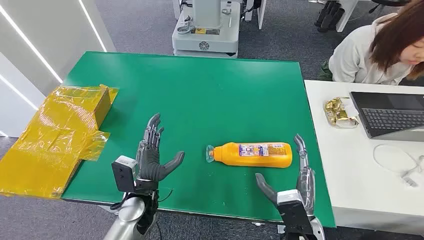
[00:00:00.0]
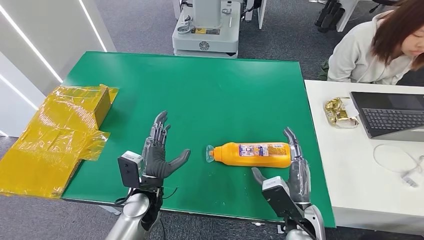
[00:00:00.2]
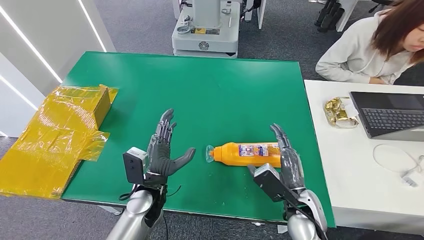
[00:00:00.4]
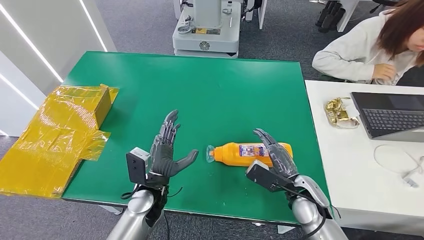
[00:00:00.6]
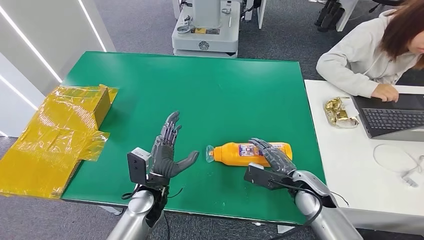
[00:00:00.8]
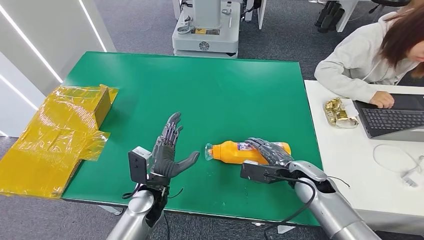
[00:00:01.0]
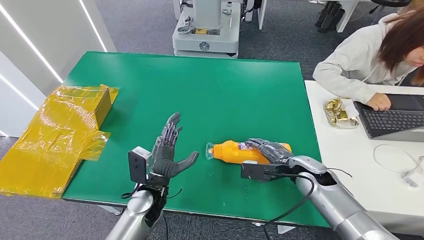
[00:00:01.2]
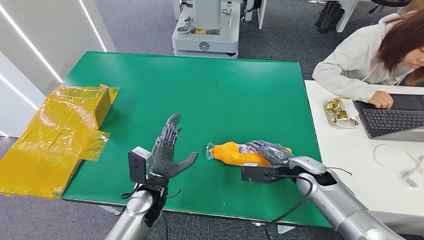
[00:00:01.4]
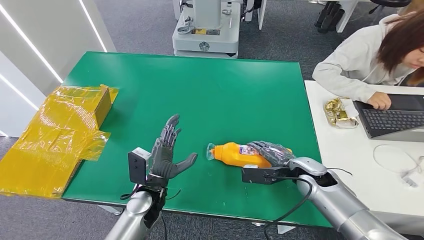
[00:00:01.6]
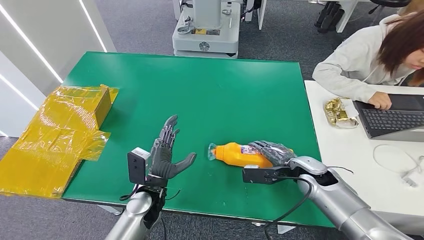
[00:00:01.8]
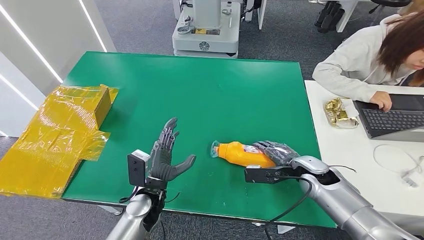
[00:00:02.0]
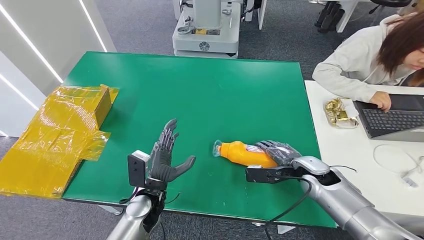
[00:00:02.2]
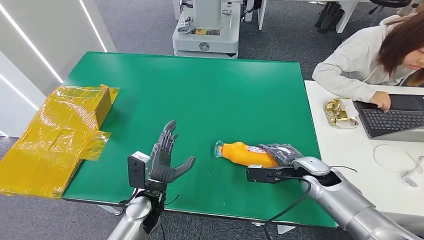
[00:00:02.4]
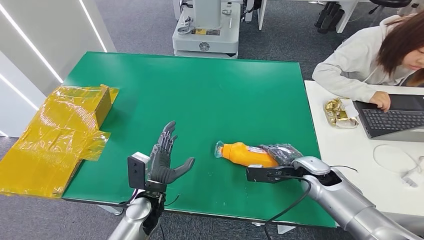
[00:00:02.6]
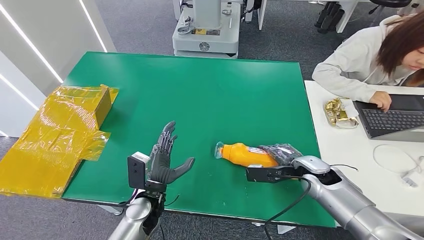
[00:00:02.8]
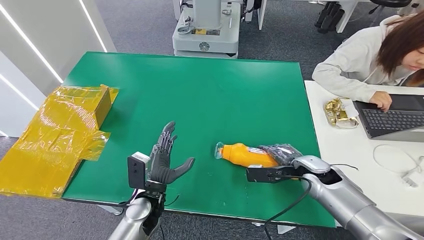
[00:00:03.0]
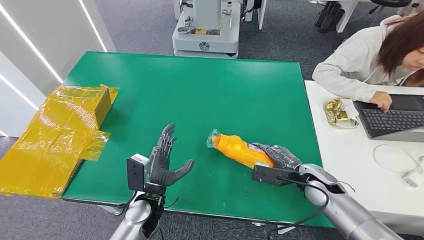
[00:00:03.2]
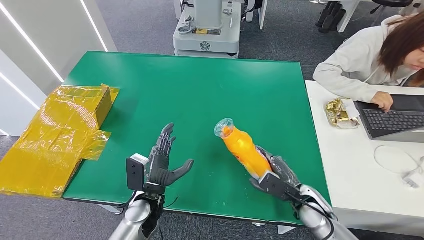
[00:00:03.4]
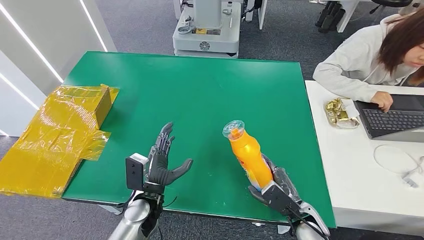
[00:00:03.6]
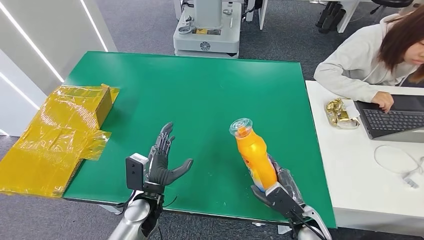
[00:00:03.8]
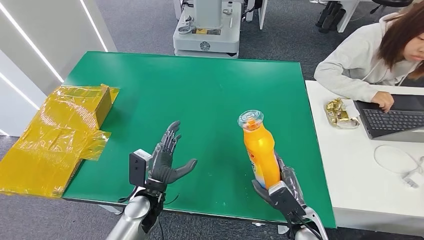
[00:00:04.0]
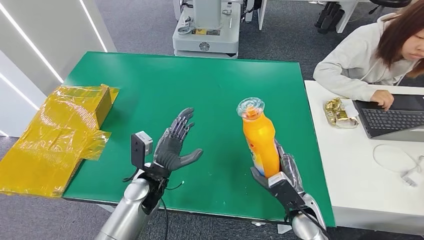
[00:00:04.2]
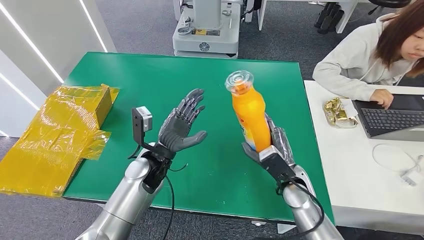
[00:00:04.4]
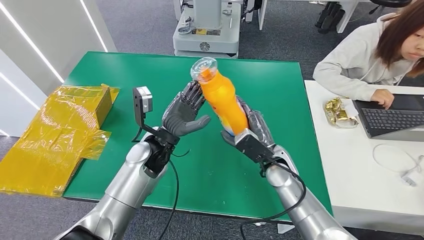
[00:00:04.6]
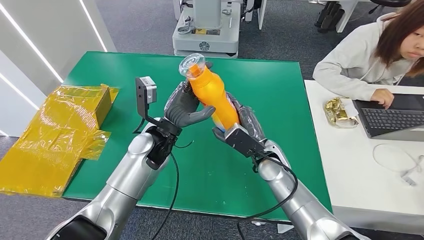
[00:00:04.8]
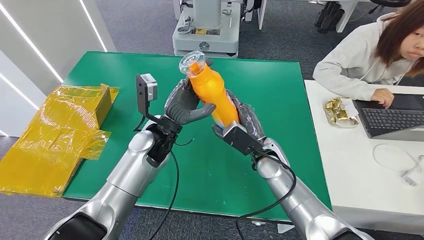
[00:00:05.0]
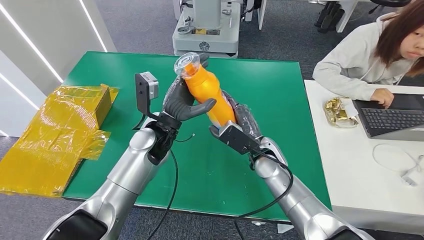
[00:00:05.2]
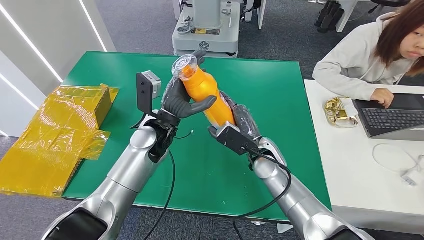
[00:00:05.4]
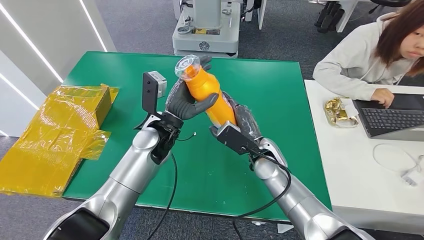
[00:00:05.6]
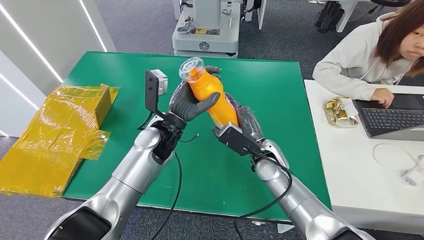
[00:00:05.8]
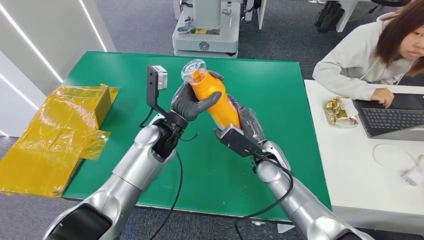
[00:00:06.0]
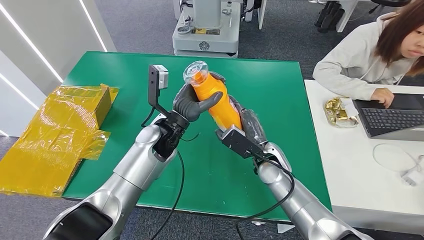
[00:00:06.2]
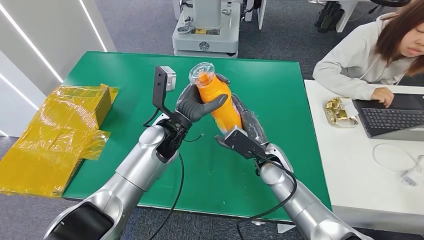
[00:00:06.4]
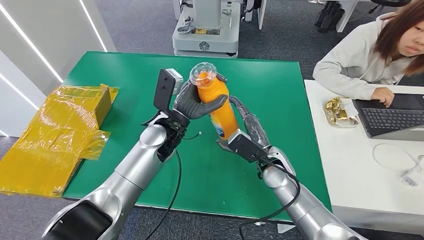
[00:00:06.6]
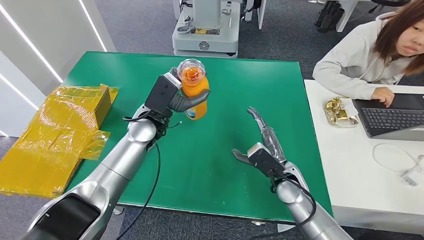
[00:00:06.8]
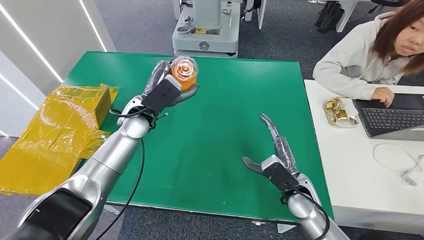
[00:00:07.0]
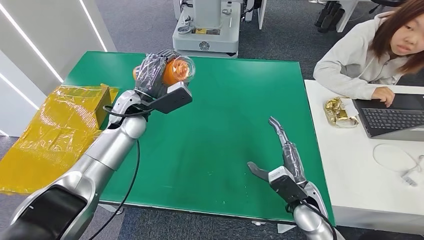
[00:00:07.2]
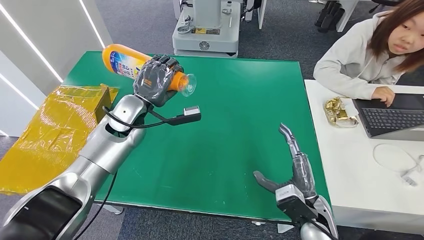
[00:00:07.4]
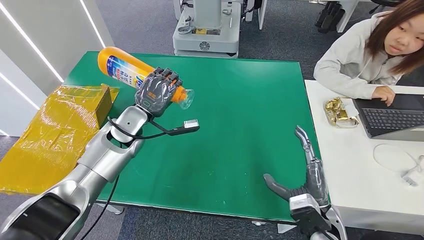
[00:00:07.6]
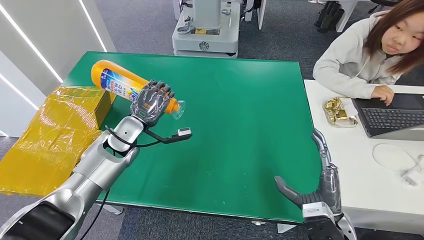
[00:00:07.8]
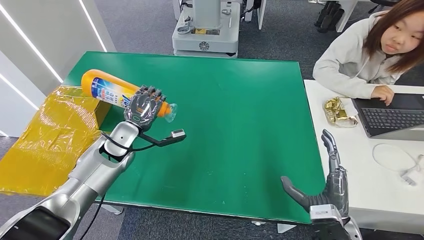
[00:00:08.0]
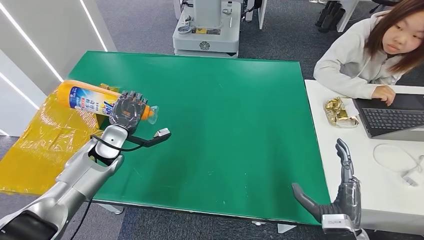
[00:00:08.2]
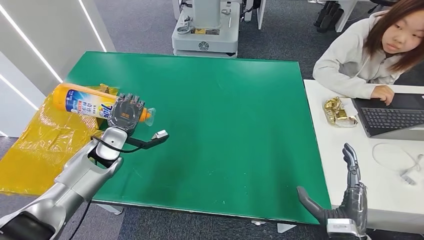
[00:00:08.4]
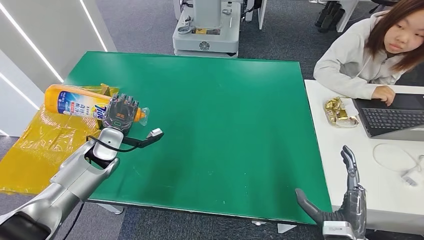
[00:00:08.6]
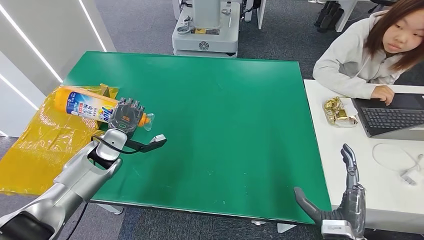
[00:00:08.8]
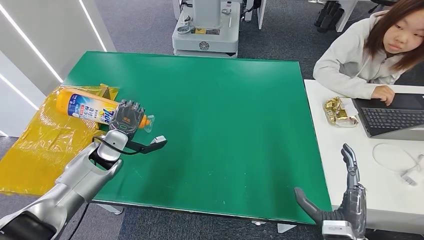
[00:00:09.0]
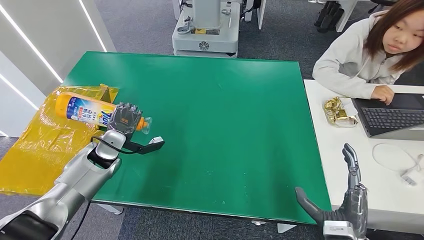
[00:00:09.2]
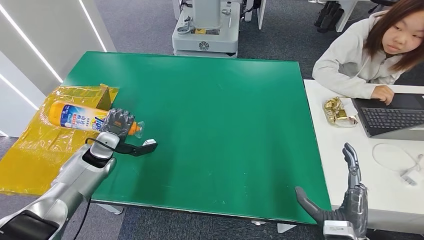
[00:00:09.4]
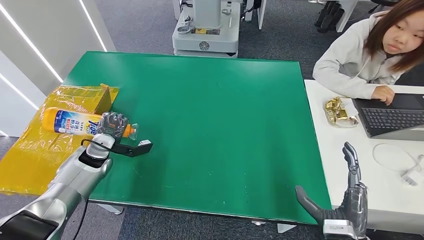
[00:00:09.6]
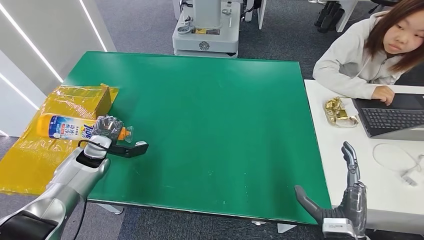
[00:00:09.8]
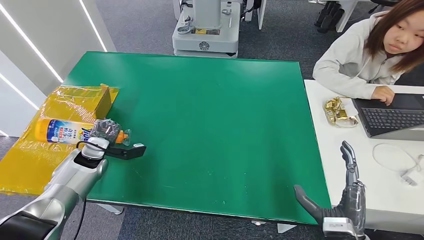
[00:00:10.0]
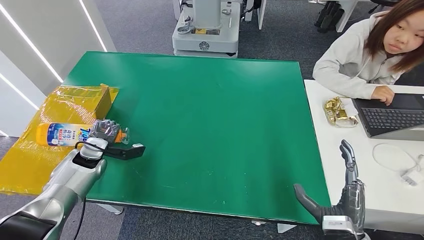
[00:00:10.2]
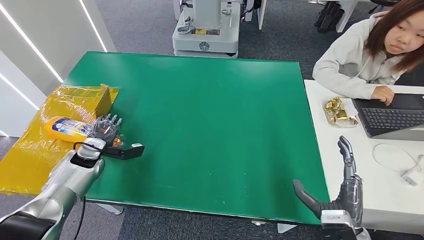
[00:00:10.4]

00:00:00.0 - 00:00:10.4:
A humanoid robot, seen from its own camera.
Step, 00:00:00.0 - 00:00:03.8: Pick up the bottle from the table.
00:00:01.4 - 00:00:03.0: The hands stay close to where they were, moving slightly.
00:00:04.4 - 00:00:06.0: The right hand travels to the left and forward by about 10 cm; the left hand is displaced upward and forward by approximately 10 cm.
00:00:07.4 - 00:00:09.0: The right hand moves backward, some 10 cm. Meanwhile the left hand shifts roughly 15 cm downward and to the left.
00:00:09.0 - 00:00:10.4: The left hand shifts about 10 cm to the left.

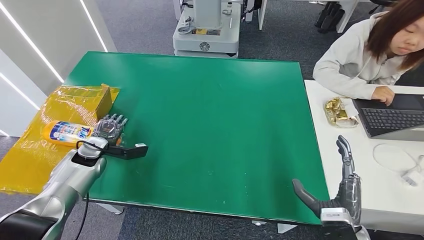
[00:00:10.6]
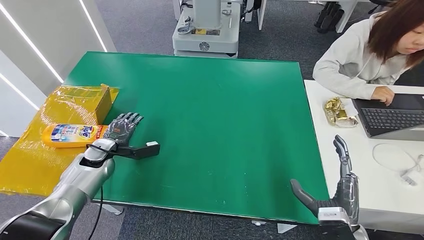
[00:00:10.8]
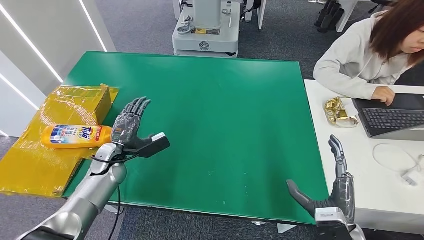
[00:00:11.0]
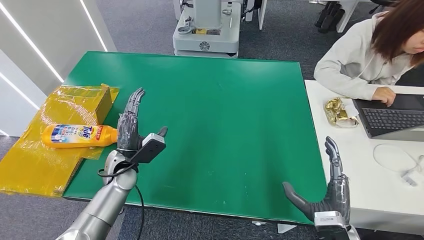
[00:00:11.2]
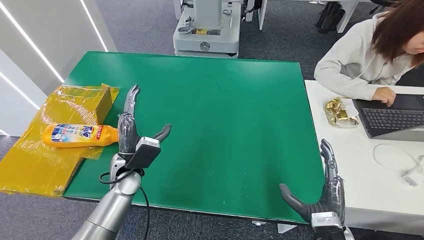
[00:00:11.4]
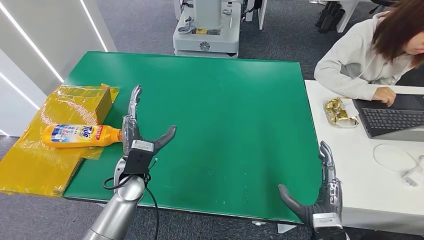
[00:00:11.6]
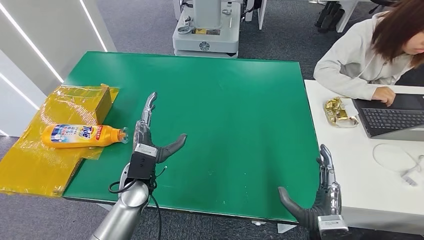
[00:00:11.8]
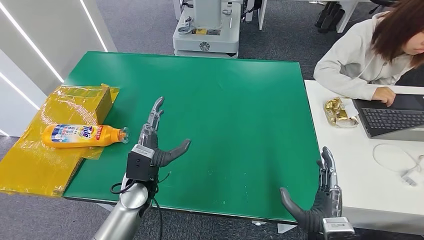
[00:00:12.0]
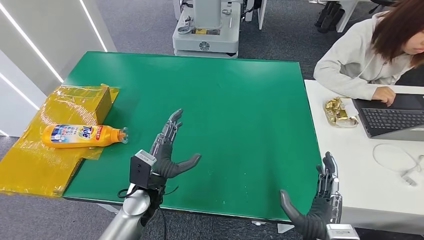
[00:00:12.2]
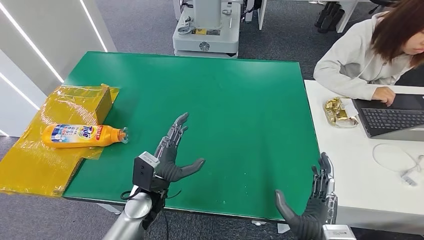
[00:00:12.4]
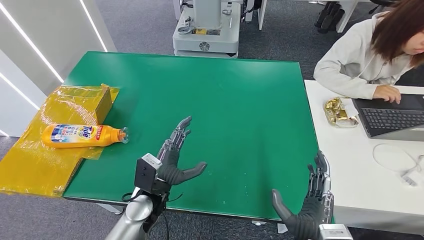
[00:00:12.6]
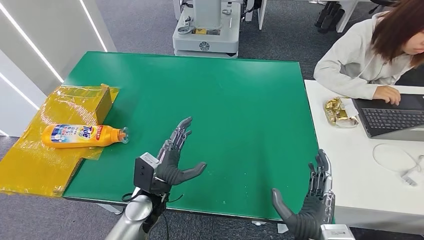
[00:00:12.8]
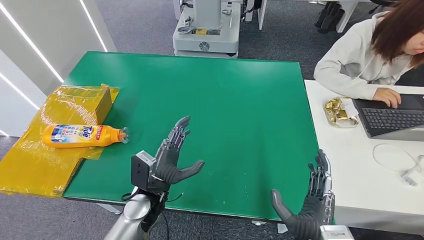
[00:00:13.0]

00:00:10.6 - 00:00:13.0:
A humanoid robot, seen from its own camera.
Step, 00:00:10.6 - 00:00:13.0: Turn the bottle to the front side.
00:00:10.6 - 00:00:11.8: The left hand travels to the right and backward by about 20 cm.
00:00:11.8 - 00:00:13.0: The right hand heads to the left, covering some 5 cm.
